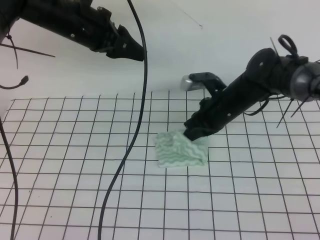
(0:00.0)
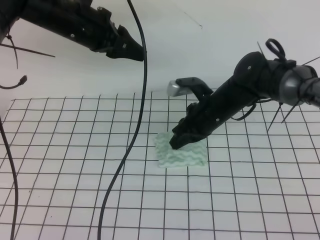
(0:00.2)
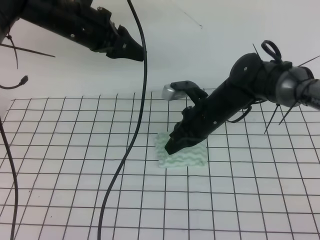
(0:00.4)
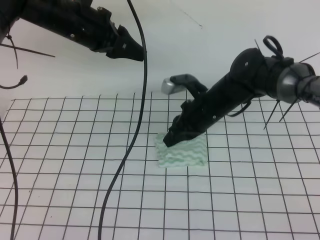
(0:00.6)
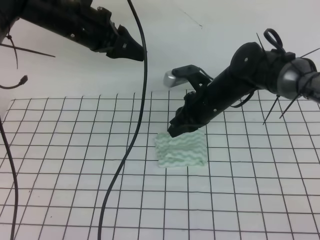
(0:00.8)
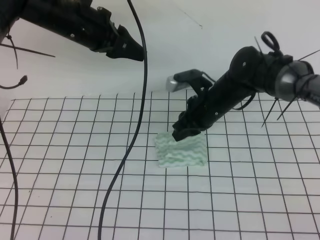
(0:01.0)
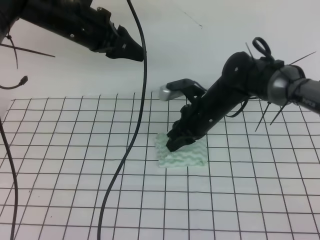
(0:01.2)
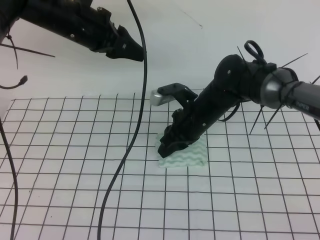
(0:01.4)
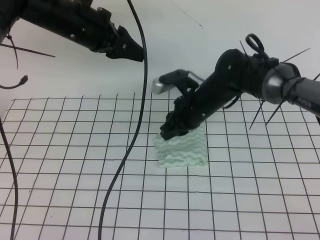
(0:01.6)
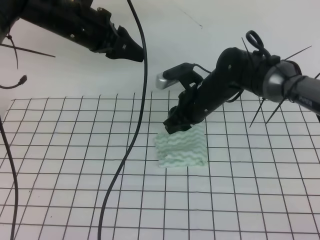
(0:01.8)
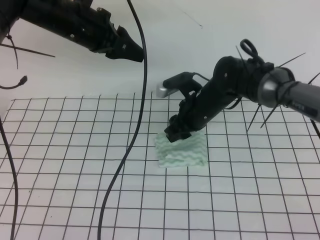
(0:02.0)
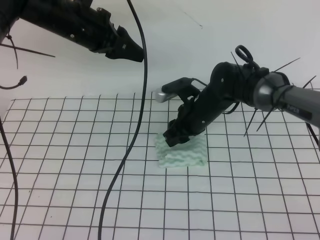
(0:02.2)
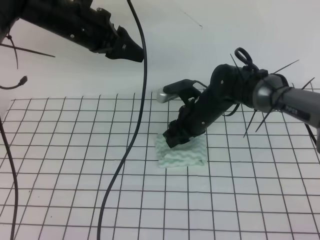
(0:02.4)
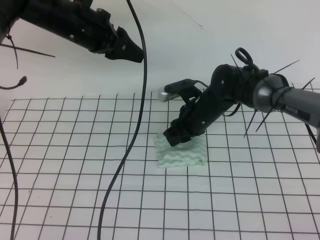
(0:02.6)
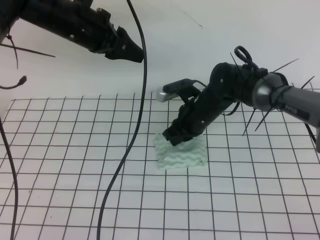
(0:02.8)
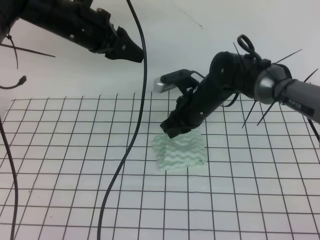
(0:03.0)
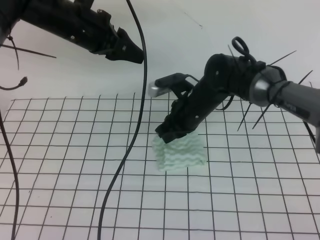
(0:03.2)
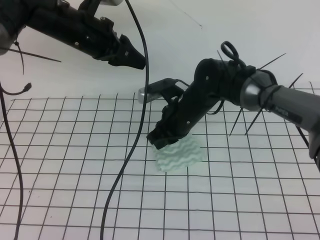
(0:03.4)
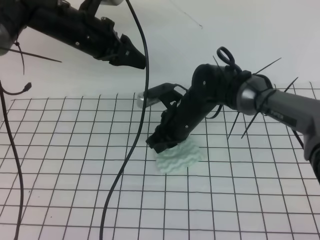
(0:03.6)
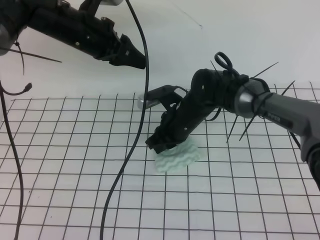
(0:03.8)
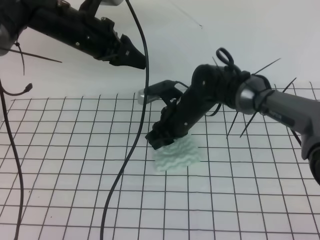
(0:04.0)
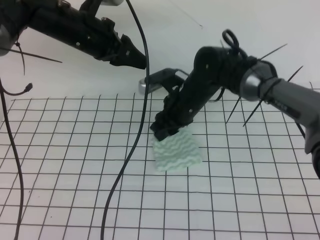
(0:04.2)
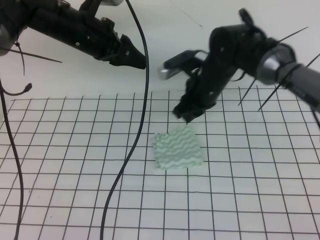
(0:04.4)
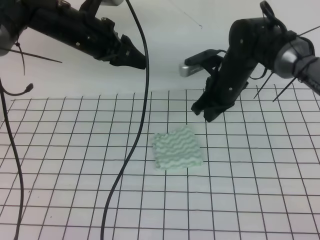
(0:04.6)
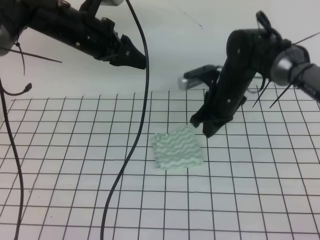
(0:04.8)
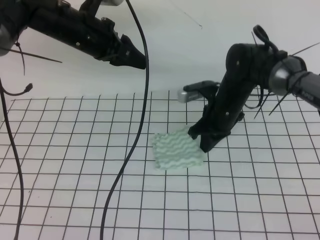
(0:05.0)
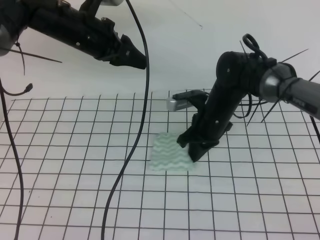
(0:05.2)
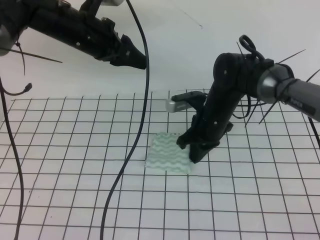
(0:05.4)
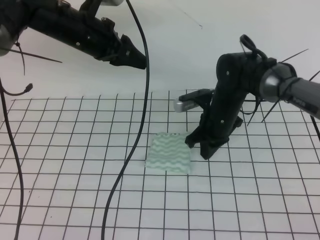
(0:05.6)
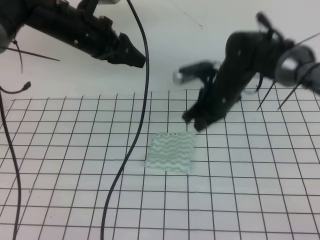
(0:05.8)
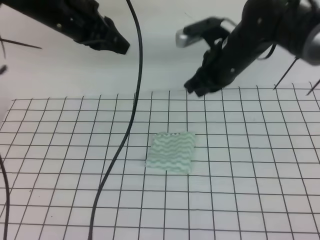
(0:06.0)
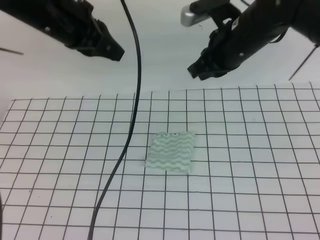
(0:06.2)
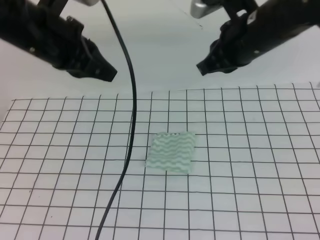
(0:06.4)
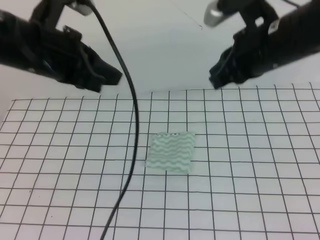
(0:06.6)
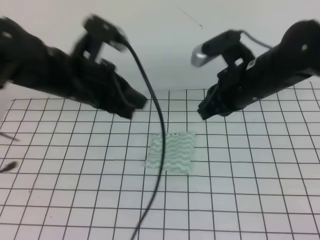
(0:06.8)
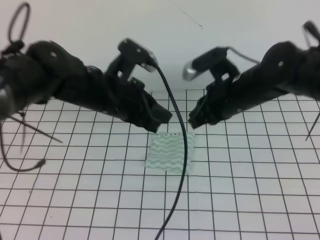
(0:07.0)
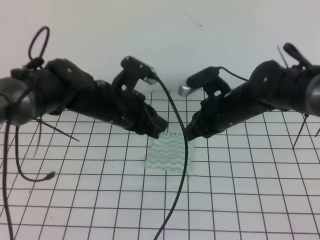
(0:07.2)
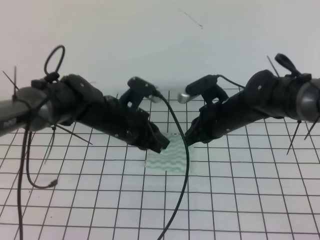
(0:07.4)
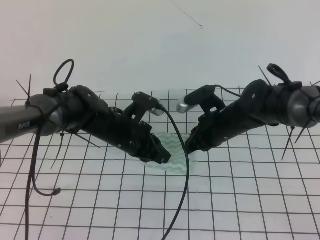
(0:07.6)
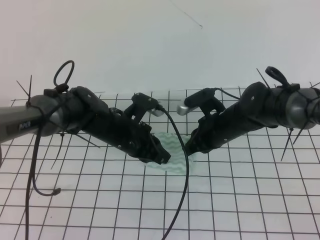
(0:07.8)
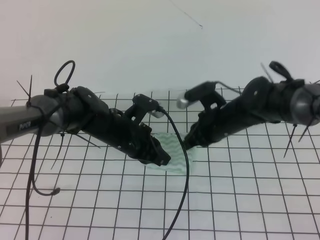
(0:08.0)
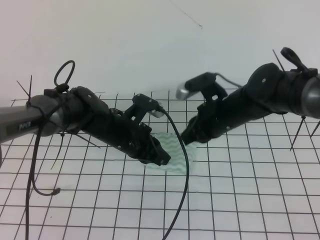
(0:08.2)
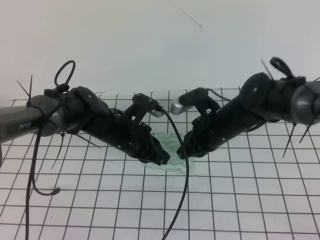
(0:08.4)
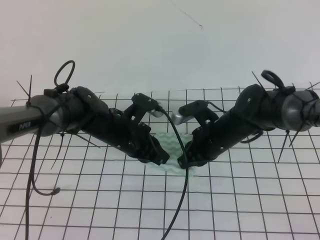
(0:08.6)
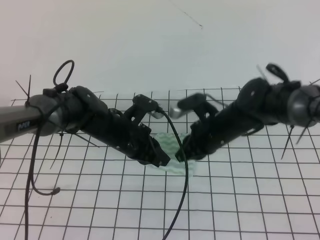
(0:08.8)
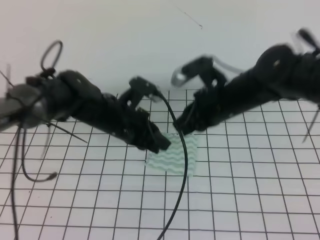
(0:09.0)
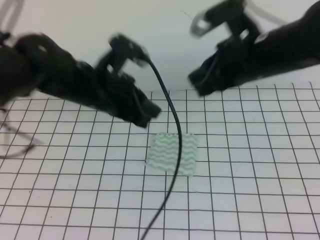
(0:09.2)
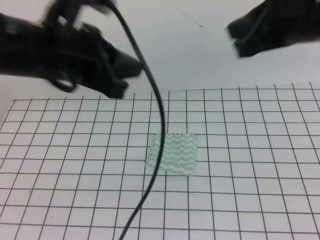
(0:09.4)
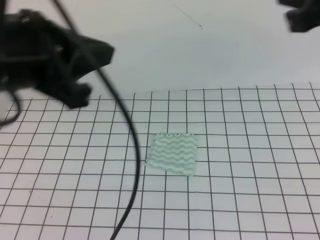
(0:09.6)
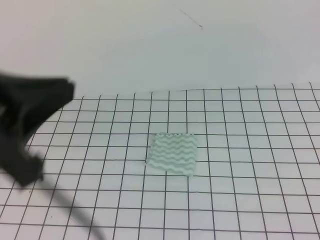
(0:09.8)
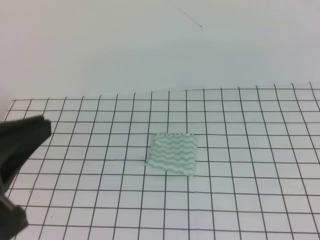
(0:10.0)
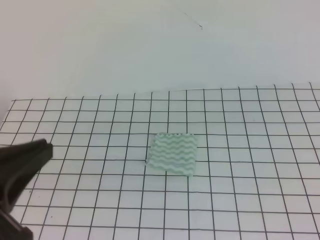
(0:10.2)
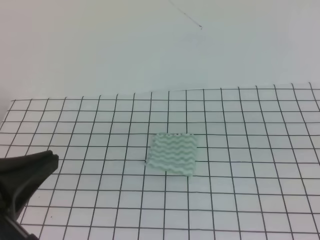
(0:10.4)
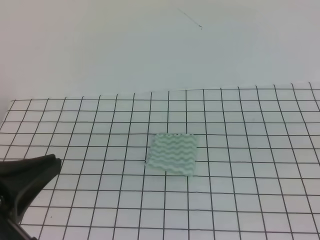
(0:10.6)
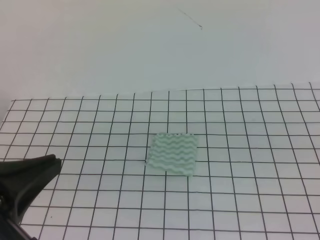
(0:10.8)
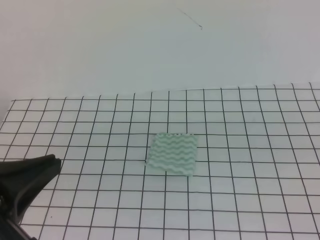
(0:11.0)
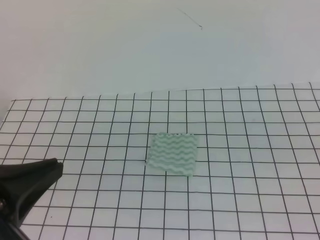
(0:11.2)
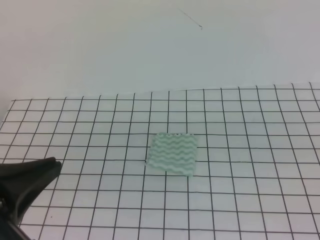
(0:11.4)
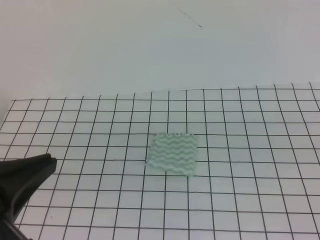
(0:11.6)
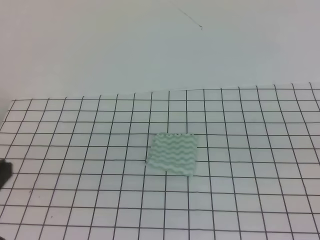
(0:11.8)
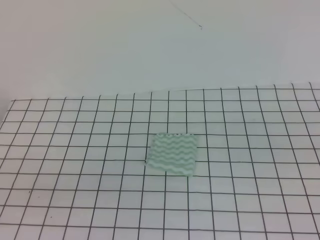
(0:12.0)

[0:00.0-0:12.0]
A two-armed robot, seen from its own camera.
0:00.0 to 0:01.6: The right gripper opens its fingers.
0:01.6 to 0:03.0: The right gripper closes its fingers.
0:03.0 to 0:04.4: There are only small adjustments of the grippers.
0:04.4 to 0:06.0: The right gripper shifts about 5 cm upward, and closes; the left gripper closes.
0:06.0 to 0:07.6: The right gripper shifts some 15 cm downward. Meanwhile the left gripper moves downward, some 20 cm, and closes its fingers.
0:07.6 to 0:09.0: The right gripper goes approximately 10 cm upward.
0:09.0 to 0:10.4: The left gripper is displaced backward, upward and to the left by some 30 cm. The right gripper moves backward, to the right and upward, approximately 30 cm.
0:10.4 to 0:12.0: The left gripper is displaced downward by some 5 cm.

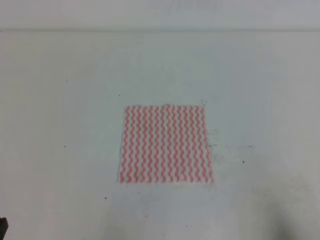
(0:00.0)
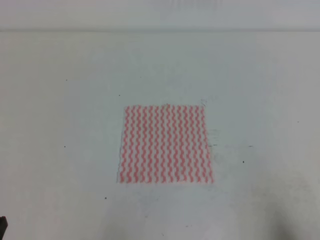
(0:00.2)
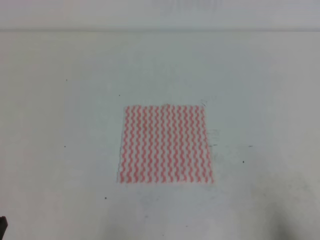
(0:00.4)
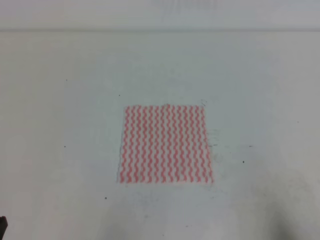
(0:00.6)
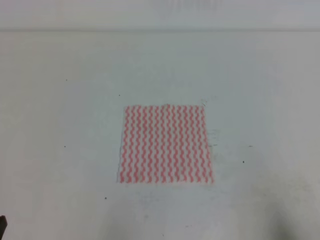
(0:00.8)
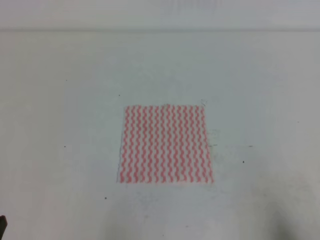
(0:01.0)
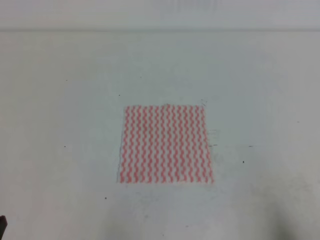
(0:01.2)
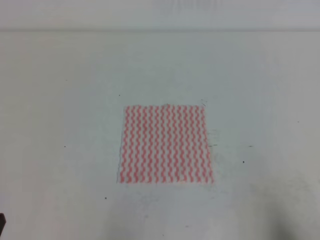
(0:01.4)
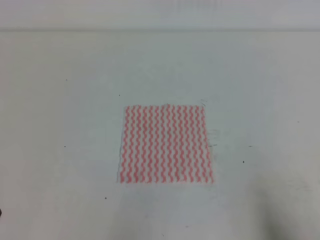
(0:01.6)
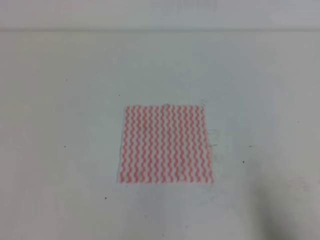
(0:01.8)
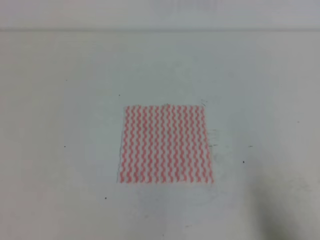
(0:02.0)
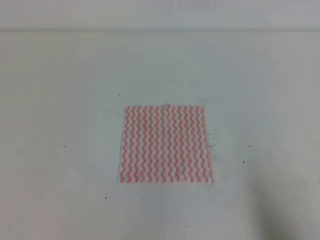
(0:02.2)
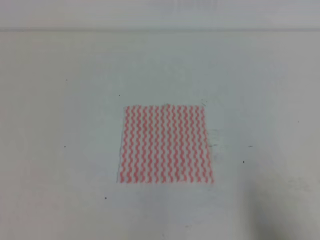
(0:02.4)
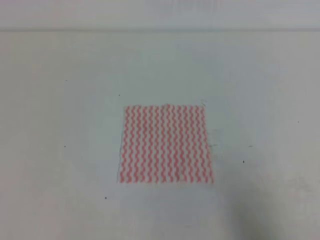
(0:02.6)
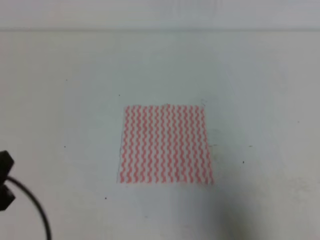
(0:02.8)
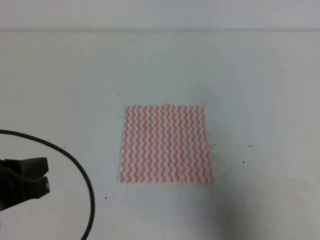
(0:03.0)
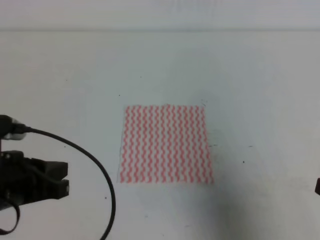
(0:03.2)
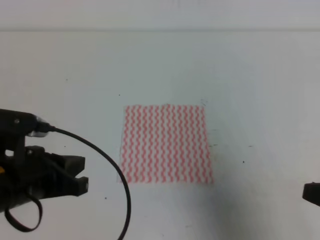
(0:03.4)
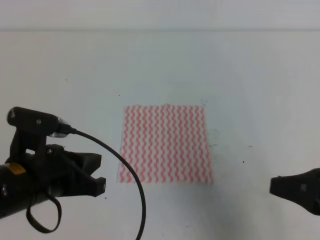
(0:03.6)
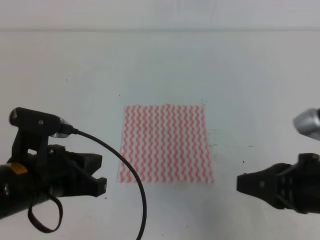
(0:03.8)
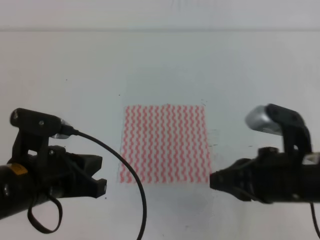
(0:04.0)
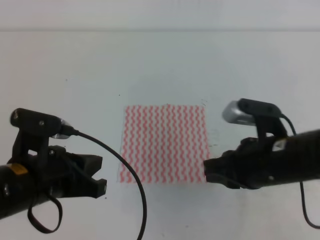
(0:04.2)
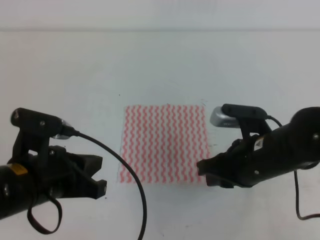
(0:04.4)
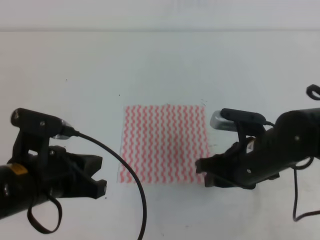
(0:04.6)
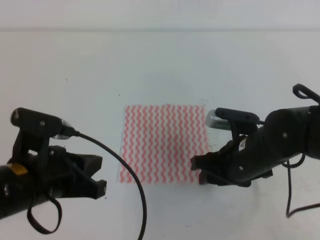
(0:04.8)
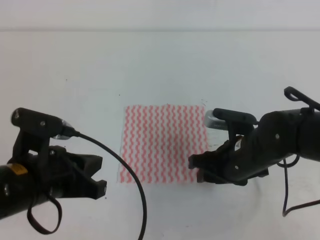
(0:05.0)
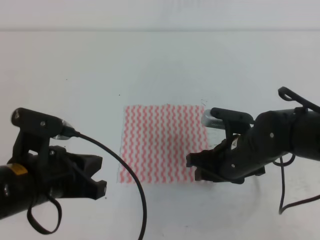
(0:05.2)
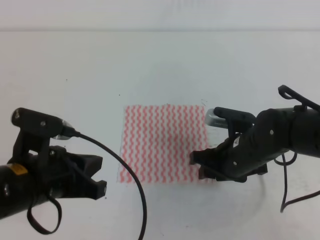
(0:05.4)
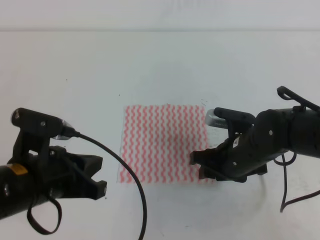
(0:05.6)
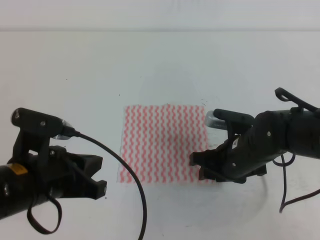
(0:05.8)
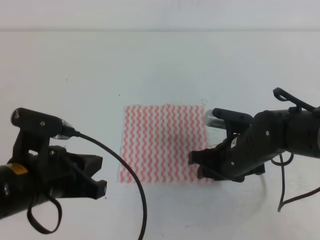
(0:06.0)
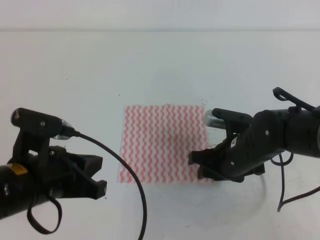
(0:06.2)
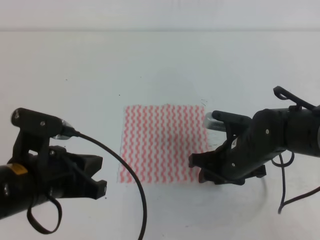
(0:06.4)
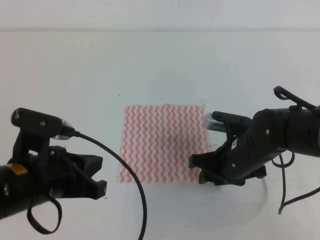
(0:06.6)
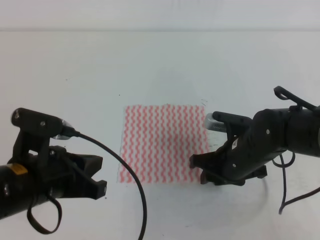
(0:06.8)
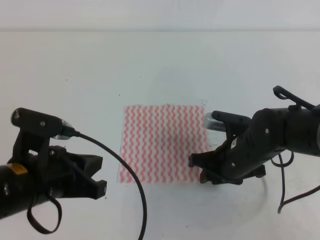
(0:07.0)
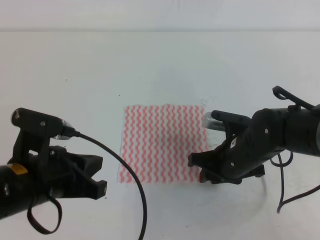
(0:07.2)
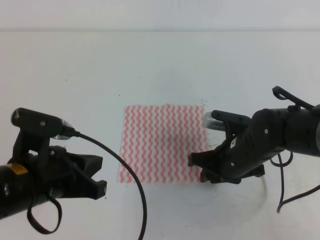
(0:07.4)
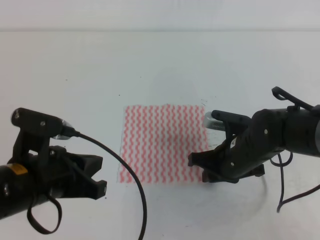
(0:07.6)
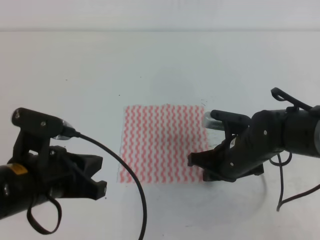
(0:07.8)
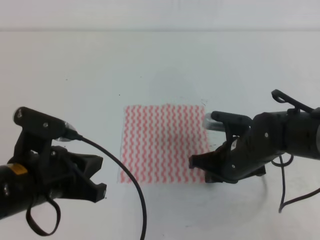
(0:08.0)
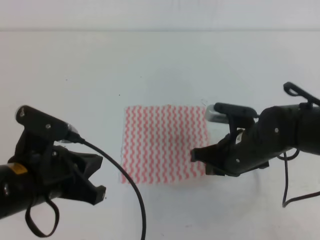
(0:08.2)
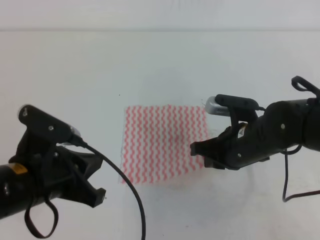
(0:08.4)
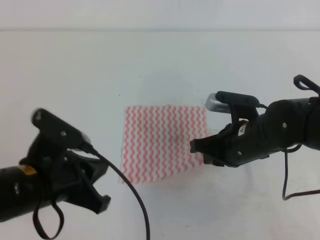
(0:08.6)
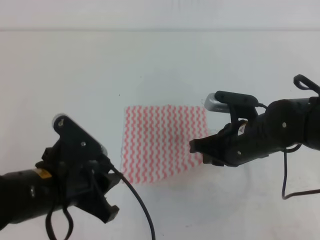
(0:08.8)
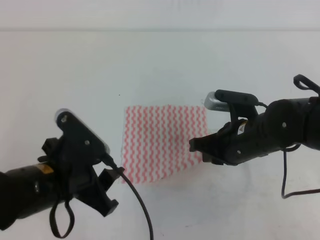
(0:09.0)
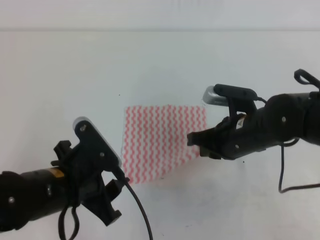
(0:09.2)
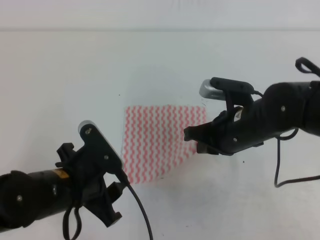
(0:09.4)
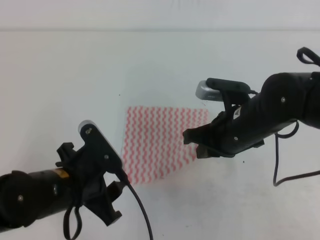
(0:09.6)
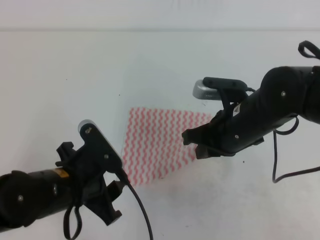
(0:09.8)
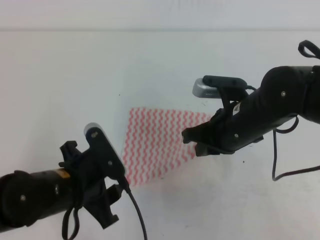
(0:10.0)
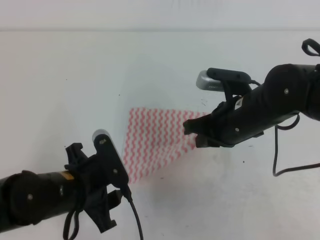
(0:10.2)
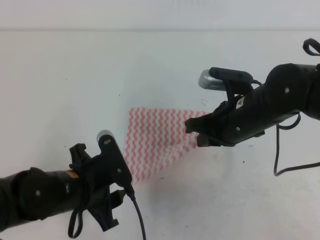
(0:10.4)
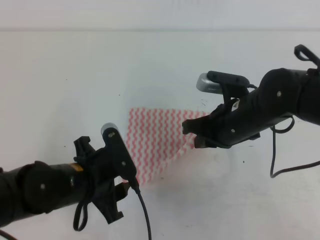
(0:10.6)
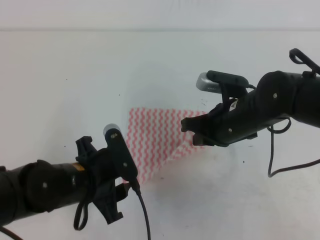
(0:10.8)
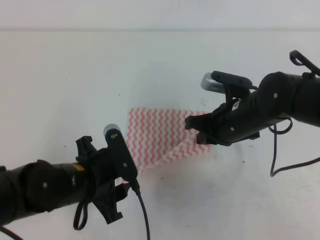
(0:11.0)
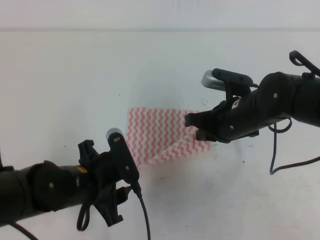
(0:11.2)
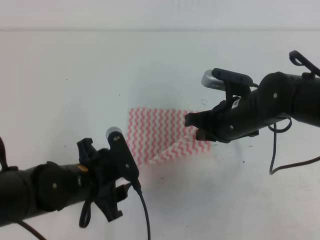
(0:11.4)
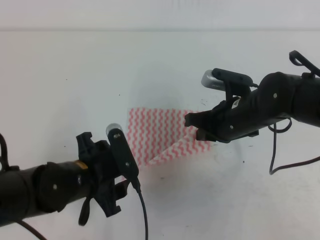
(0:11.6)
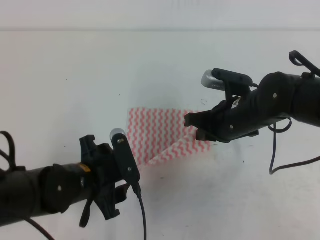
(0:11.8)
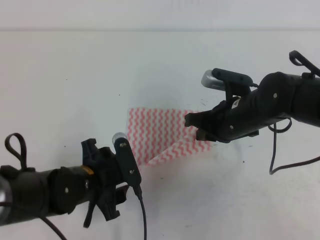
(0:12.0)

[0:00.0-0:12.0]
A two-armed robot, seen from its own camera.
0:01.6 to 0:03.0: The right gripper travels upward by some 10 cm; the left gripper travels upward and forward by some 10 cm.
0:03.0 to 0:04.4: The right gripper heads to the left and forward, covering approximately 20 cm; the left gripper travels to the right and forward by approximately 10 cm.
0:04.4 to 0:06.0: The right gripper goes some 10 cm downward and forward, and opens its fingers.
0:06.0 to 0:07.6: The right gripper closes.
0:07.6 to 0:09.0: The left gripper opens its fingers, while the right gripper travels upward by approximately 5 cm, and closes its fingers.
0:10.4 to 0:12.0: The grippers move only a little.
